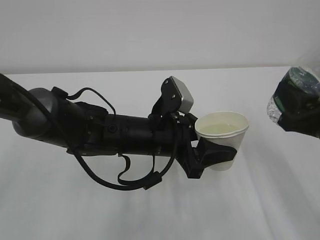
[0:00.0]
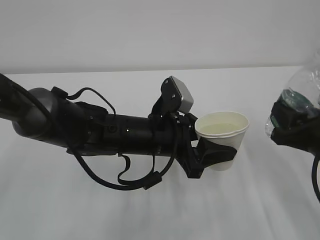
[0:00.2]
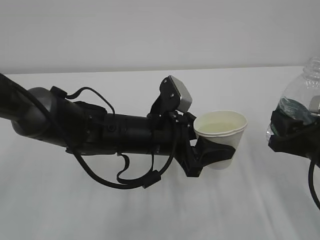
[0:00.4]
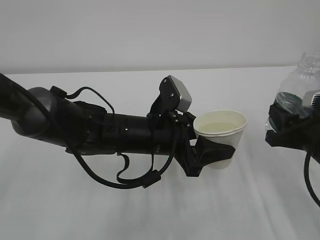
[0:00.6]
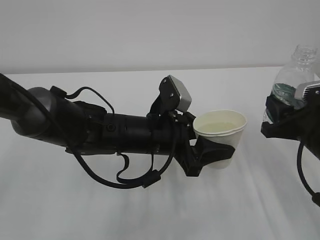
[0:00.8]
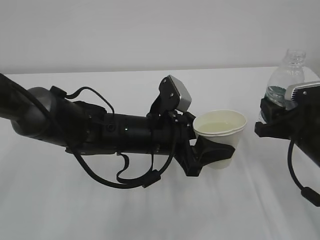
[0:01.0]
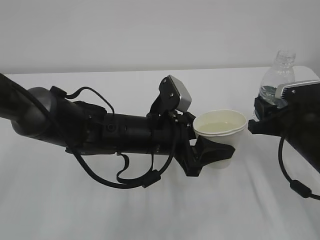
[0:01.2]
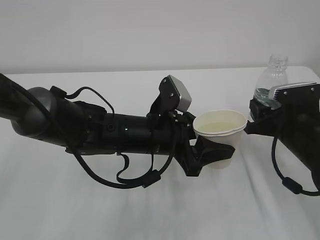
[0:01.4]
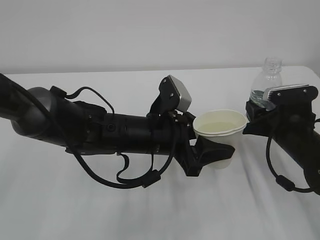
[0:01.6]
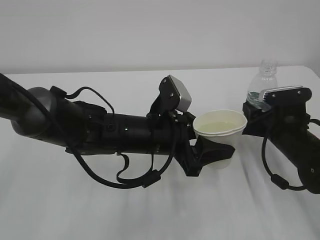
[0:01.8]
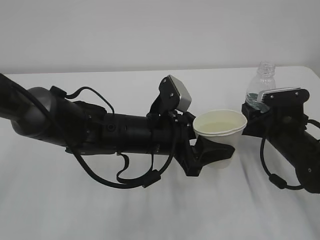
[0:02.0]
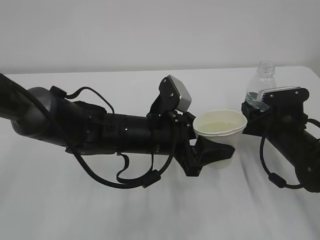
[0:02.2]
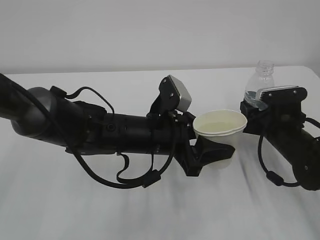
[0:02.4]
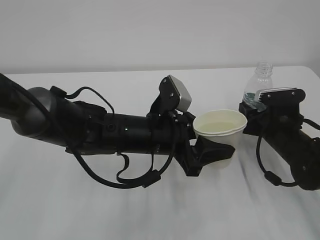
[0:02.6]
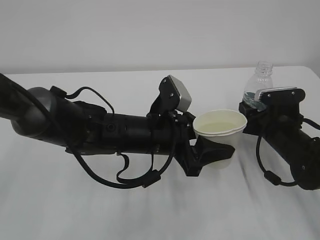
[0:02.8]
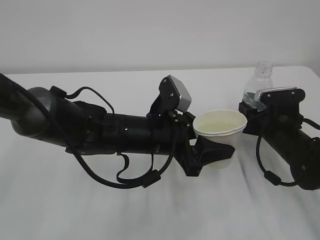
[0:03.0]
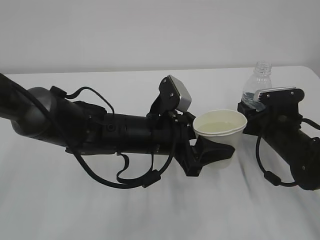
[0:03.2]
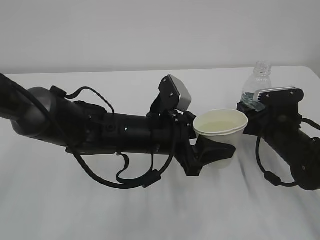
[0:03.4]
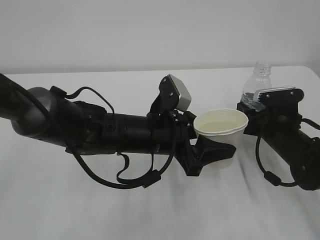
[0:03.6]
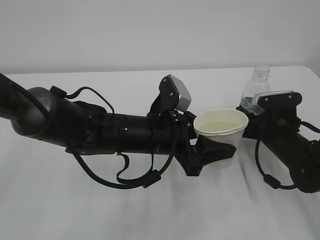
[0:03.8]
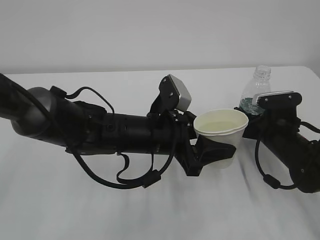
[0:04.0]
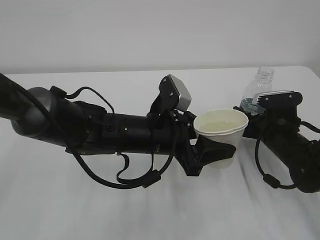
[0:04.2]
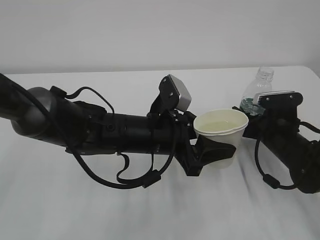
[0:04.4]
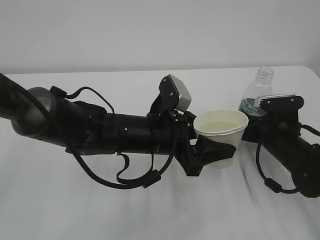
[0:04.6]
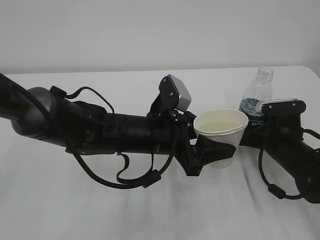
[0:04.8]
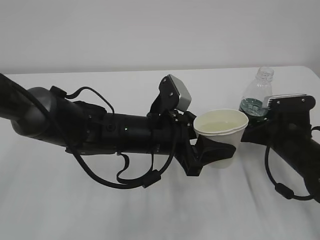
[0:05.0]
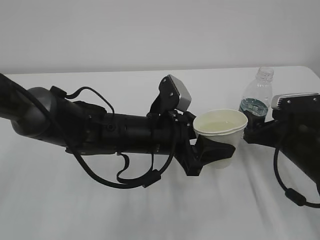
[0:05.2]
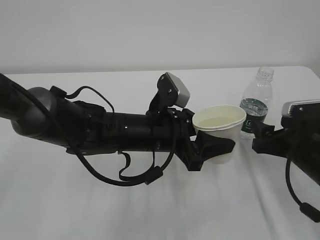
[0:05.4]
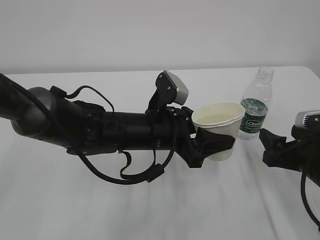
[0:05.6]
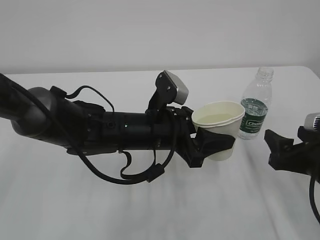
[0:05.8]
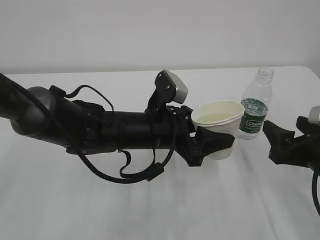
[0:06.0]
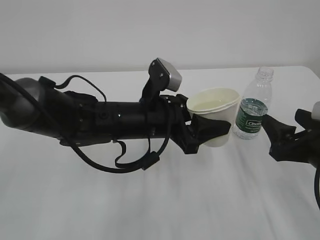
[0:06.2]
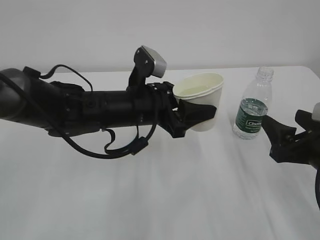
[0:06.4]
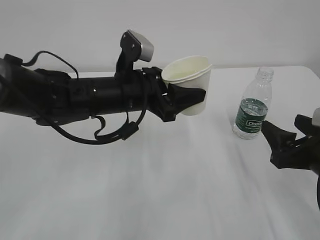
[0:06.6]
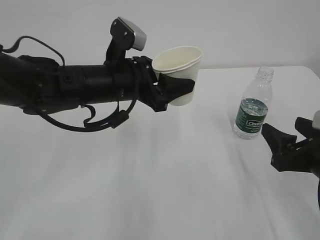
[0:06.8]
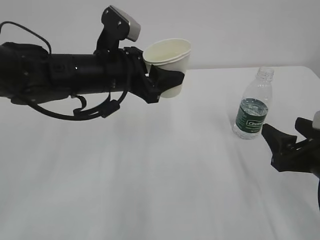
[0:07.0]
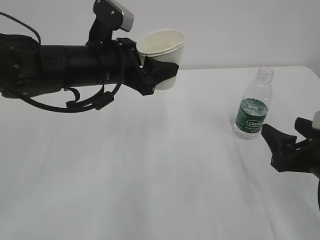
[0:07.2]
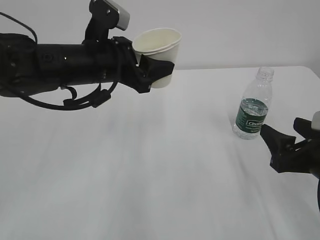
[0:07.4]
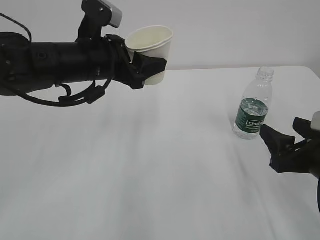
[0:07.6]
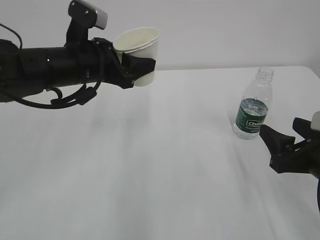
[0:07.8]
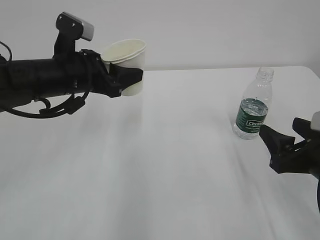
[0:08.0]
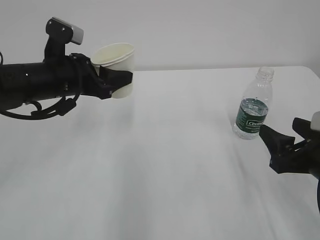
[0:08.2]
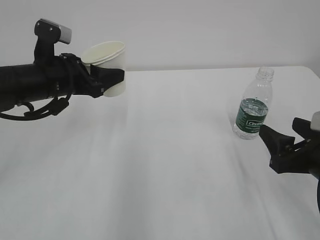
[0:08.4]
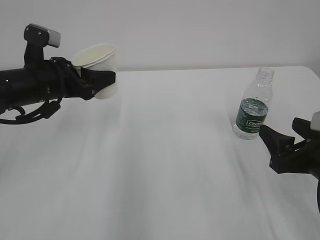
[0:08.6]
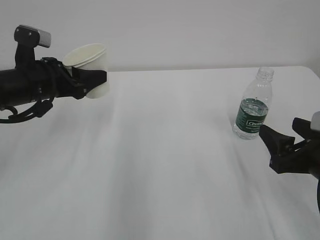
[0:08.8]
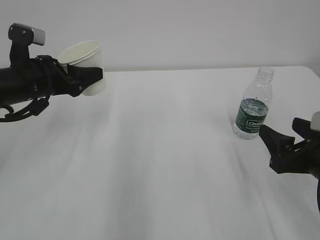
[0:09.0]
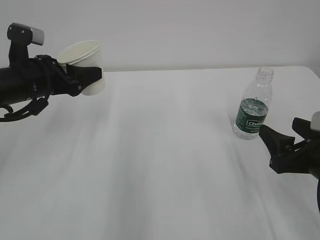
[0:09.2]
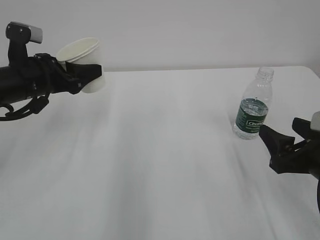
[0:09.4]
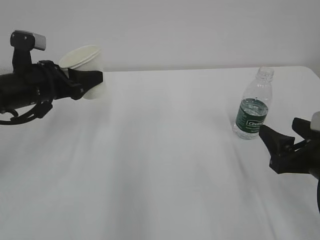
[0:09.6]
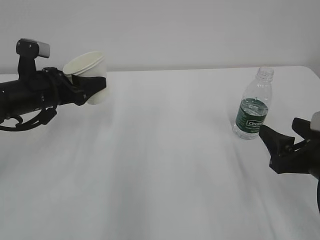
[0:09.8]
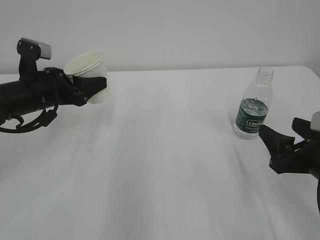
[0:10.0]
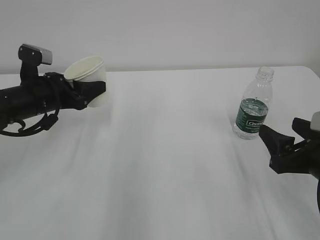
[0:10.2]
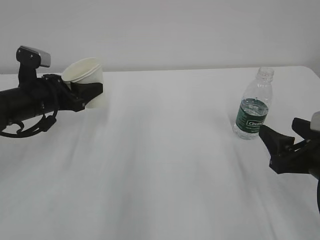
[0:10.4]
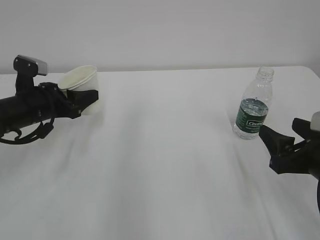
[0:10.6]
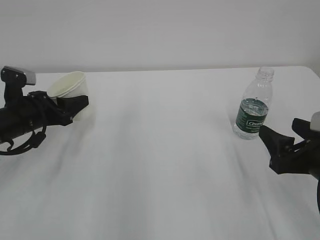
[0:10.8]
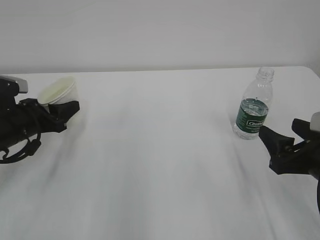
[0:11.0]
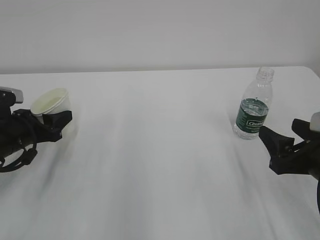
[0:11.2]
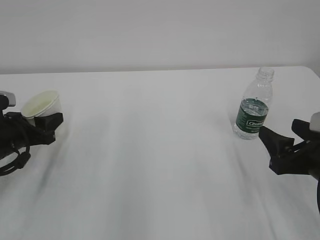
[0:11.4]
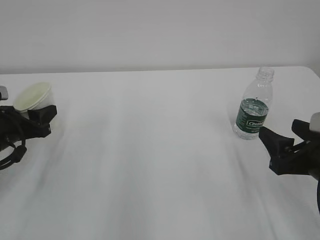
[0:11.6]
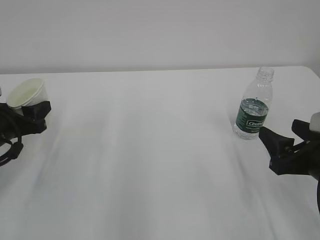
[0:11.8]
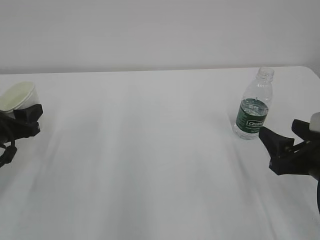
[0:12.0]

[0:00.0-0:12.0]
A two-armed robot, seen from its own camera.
0:00.0 to 0:01.6: The right gripper moves forward and downward, about 15 cm.
0:01.6 to 0:03.0: The grippers stay close to where they were, moving slightly.
0:03.0 to 0:04.4: The right gripper opens.
0:04.4 to 0:06.0: The right gripper goes about 15 cm backward and upward.
0:06.0 to 0:07.6: The left gripper heads upward, to the left and forward, covering roughly 15 cm.
0:07.6 to 0:09.0: The left gripper is displaced to the left by roughly 10 cm.
0:09.0 to 0:10.4: The grippers stay close to where they were, moving slightly.
0:10.4 to 0:12.0: The left gripper heads backward and to the left, covering roughly 10 cm.

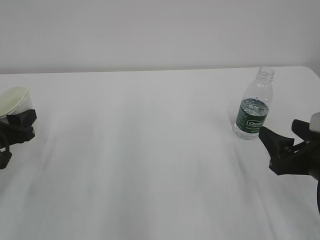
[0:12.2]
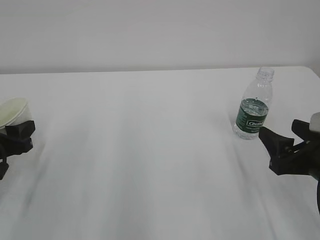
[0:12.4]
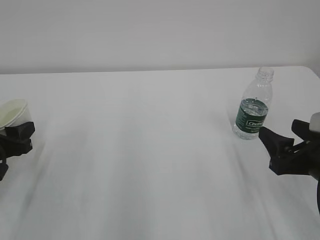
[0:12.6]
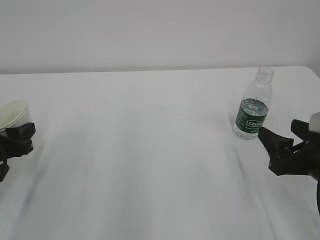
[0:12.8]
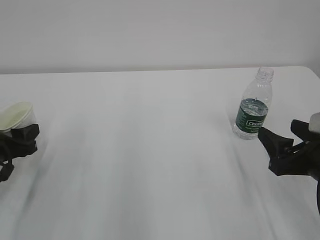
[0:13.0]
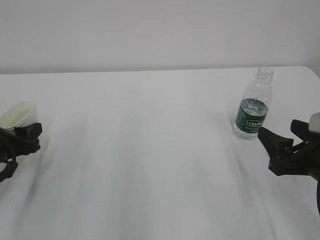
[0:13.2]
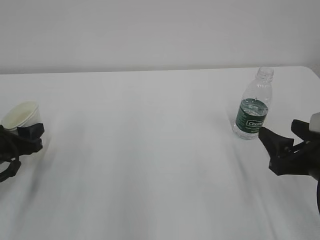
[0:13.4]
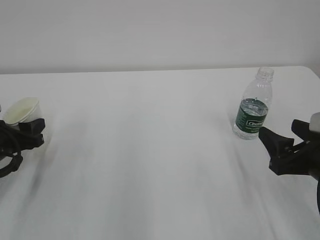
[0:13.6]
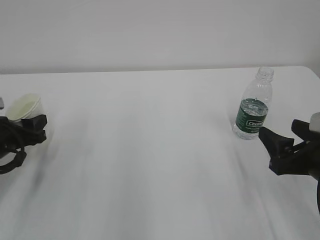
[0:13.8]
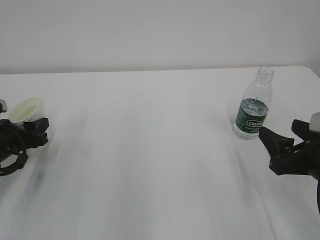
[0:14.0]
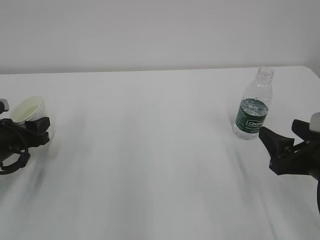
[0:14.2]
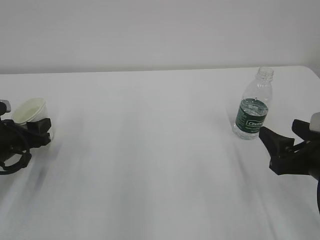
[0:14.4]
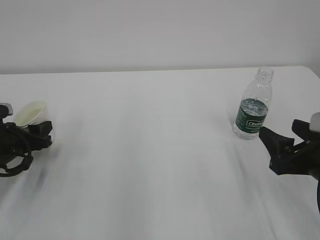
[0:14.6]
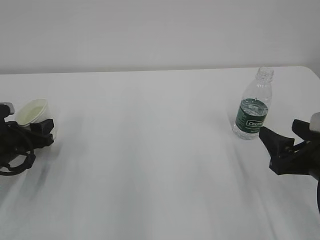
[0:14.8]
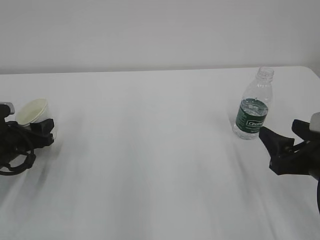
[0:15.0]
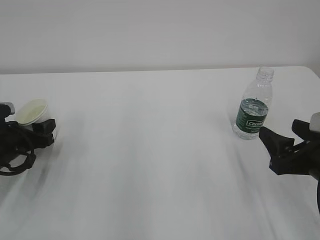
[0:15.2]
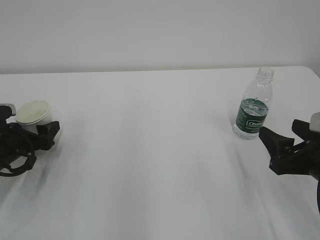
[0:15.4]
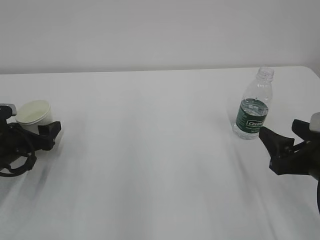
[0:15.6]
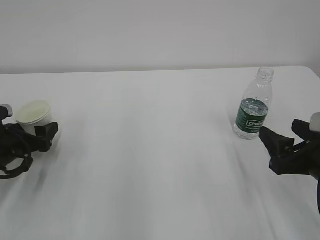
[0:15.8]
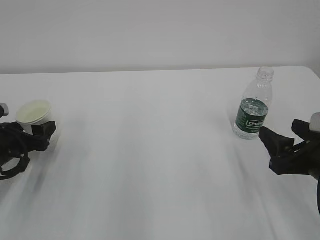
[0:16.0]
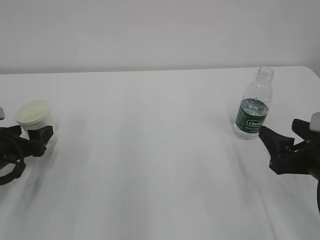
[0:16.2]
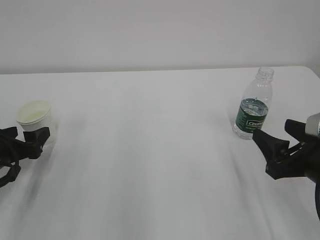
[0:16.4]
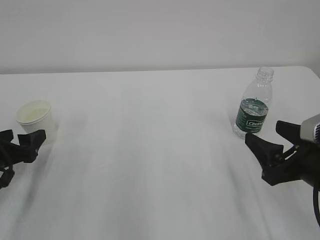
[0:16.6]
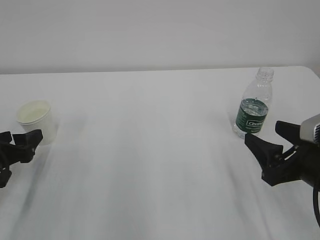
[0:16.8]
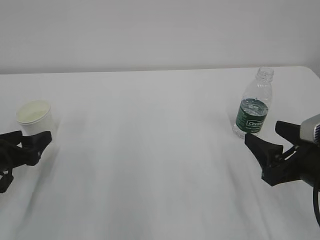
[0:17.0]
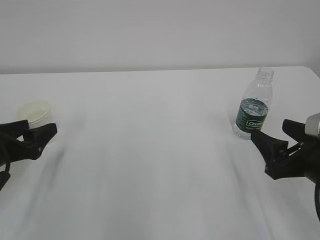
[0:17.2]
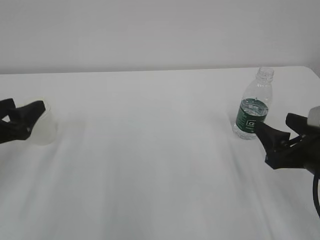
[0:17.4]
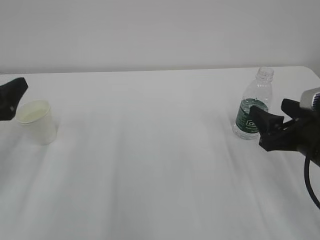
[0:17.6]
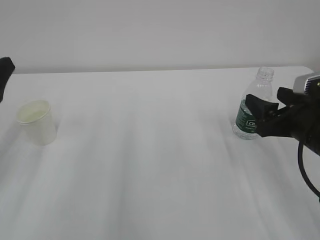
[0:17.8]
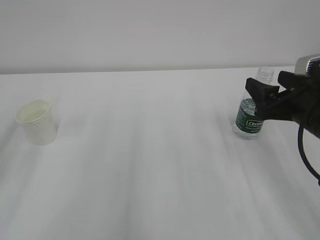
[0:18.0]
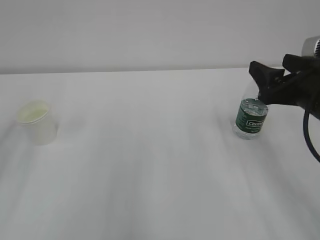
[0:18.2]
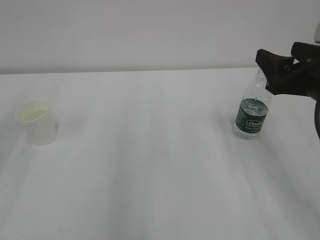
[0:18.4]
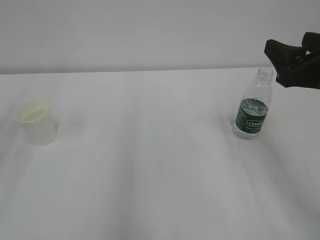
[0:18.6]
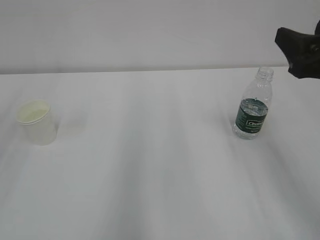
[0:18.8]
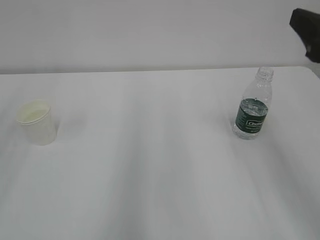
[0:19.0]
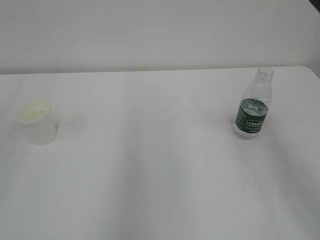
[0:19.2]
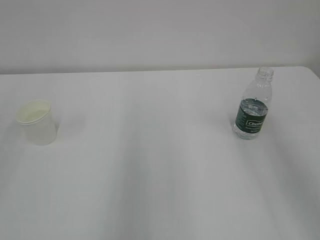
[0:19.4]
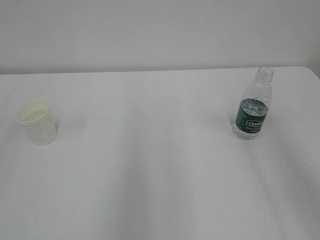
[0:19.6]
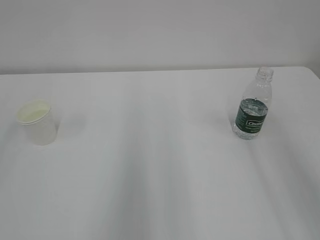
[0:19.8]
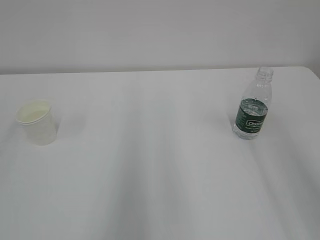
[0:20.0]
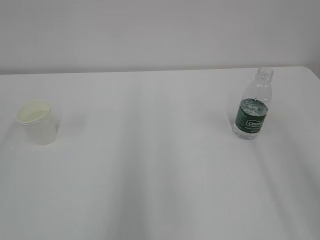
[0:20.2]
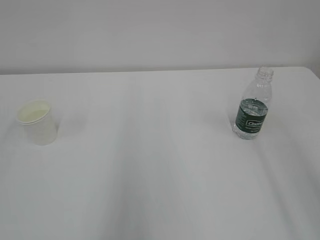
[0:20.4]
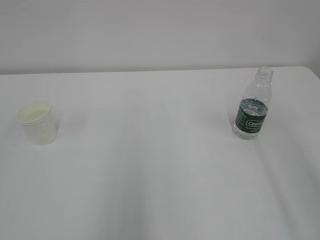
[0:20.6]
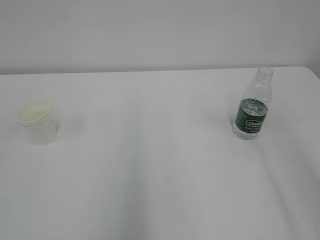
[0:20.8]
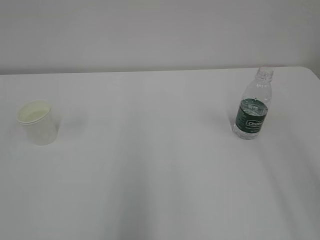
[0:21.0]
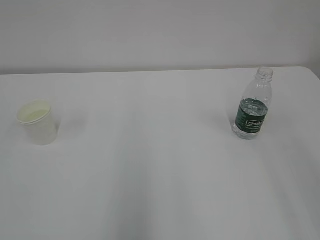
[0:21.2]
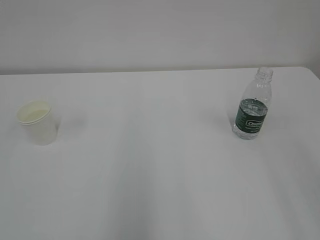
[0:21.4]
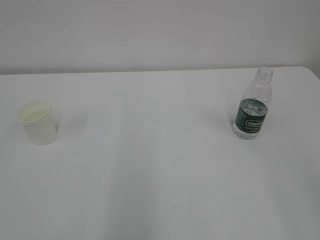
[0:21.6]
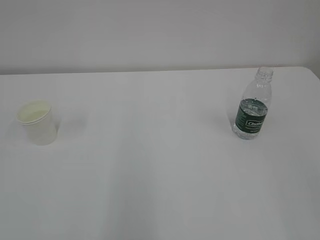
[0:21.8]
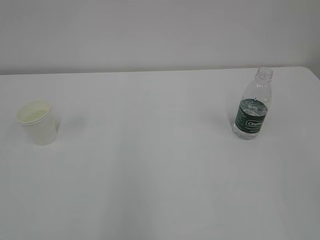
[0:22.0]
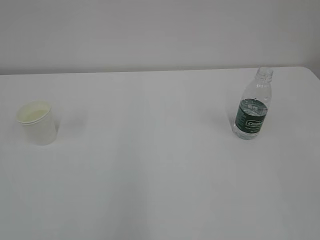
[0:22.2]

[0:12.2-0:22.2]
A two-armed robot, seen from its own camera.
0:12.2 to 0:13.6: The grippers make only small movements.
0:13.6 to 0:15.0: The grippers stay close to where they were, moving slightly.
0:15.0 to 0:16.4: The left gripper opens up.
0:16.4 to 0:18.0: The right gripper moves forward, some 5 cm. Meanwhile the left gripper moves upward, approximately 15 cm.
0:18.0 to 0:19.4: The right gripper moves upward and backward, some 20 cm.
